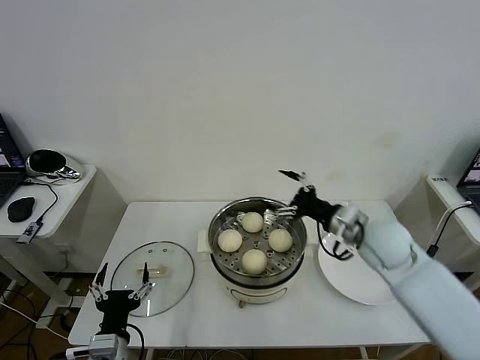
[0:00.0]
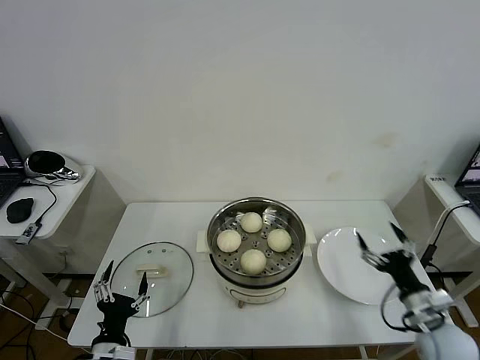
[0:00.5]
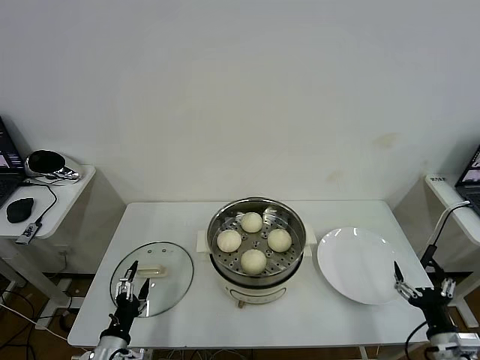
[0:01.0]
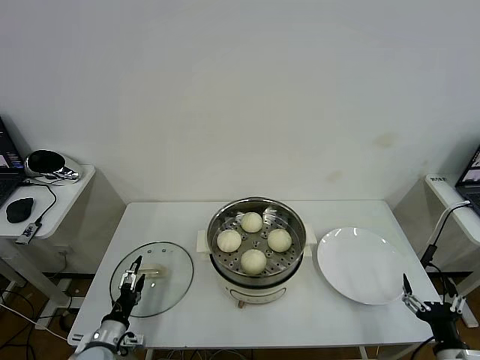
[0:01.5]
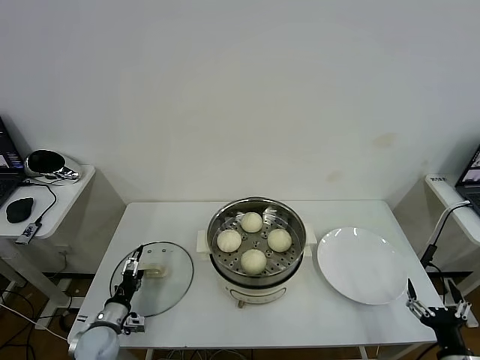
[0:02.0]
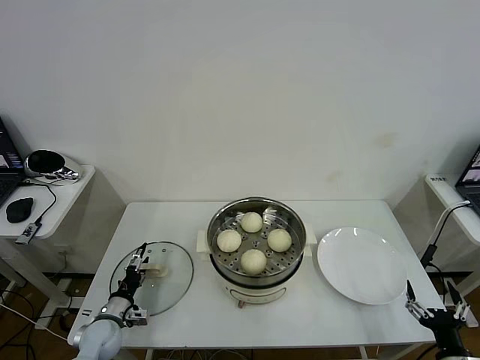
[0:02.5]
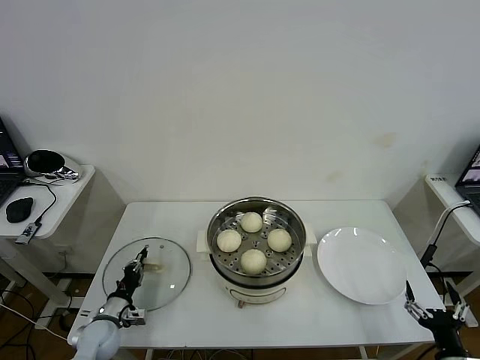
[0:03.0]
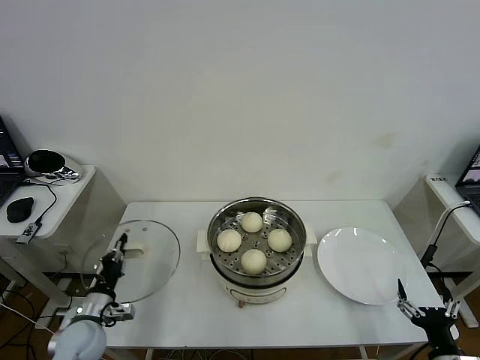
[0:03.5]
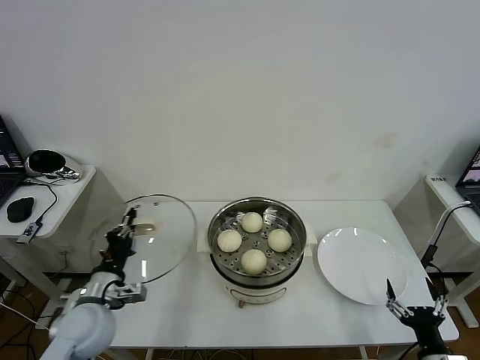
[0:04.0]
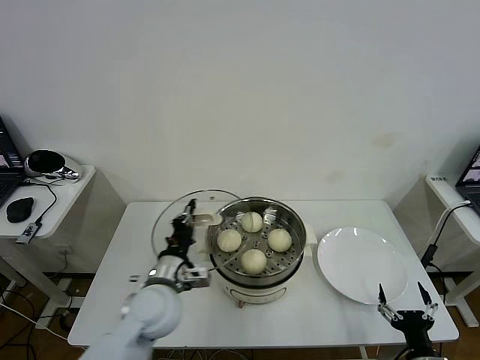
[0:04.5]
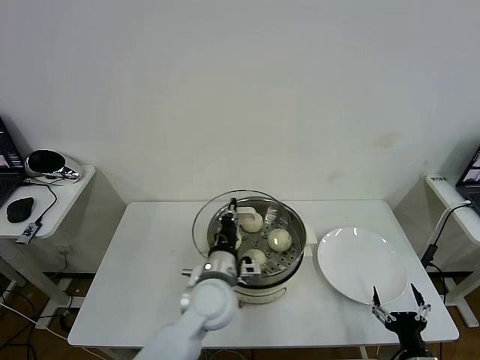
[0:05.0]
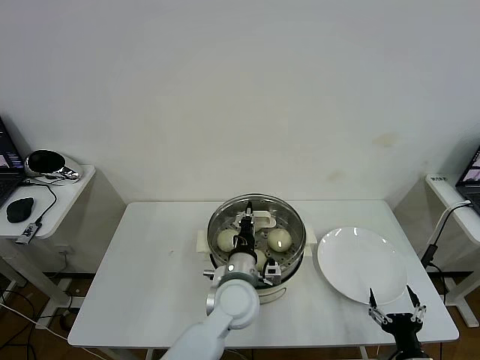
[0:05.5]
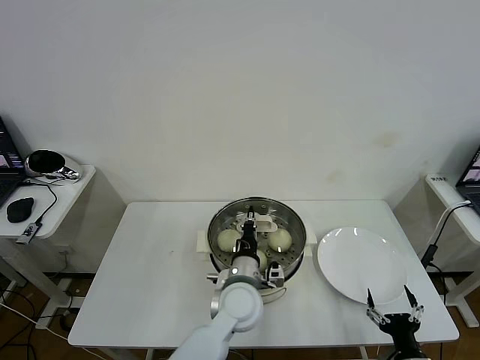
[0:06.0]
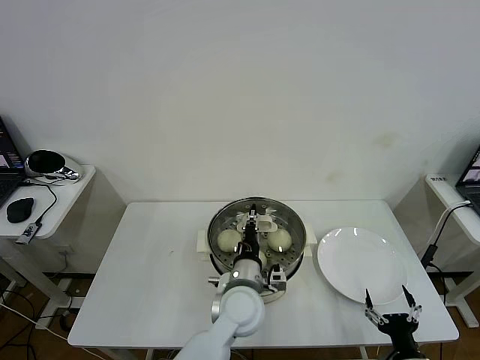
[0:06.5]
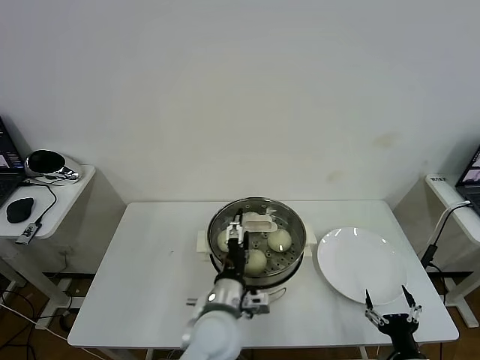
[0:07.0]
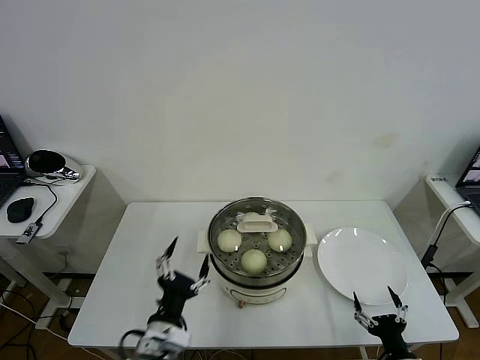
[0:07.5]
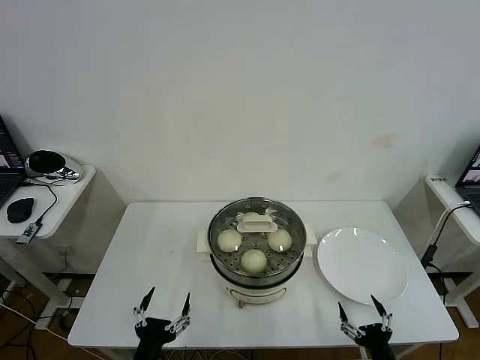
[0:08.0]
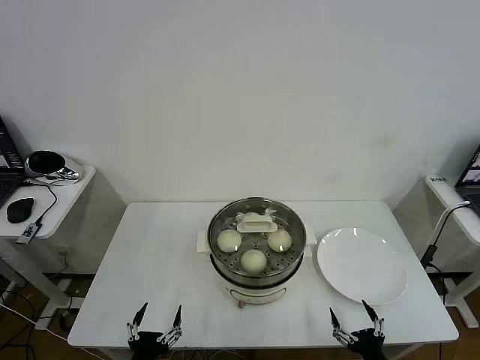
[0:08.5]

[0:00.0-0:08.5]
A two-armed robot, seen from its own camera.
Task of the whole recording: take steamed baozi put them in steamer then cover it.
Step, 0:00.0 to 0:03.0: Grasp the pot lid with left gripper.
Step, 0:03.5 to 0:07.0: Place the pot lid on the steamer with left gripper.
0:00.0 to 0:02.0: The right gripper goes roughly 35 cm backward, downward and to the right. Meanwhile the left gripper shifts approximately 20 cm downward, forward and to the left.
0:02.0 to 0:04.0: The left gripper shifts roughly 15 cm upward, and closes.
0:04.0 to 0:06.5: The right gripper shifts by some 5 cm; the left gripper travels to the right by about 30 cm.
0:06.5 to 0:08.5: The left gripper is displaced to the left and backward by roughly 30 cm, and opens its fingers.

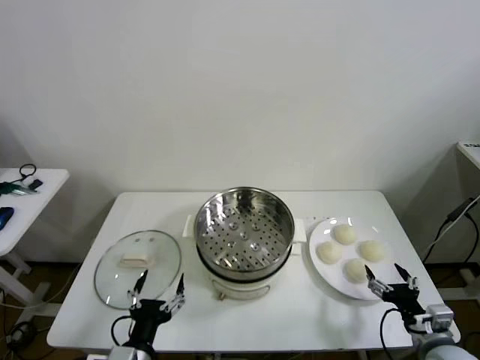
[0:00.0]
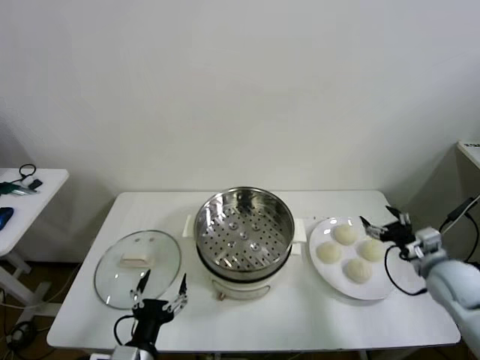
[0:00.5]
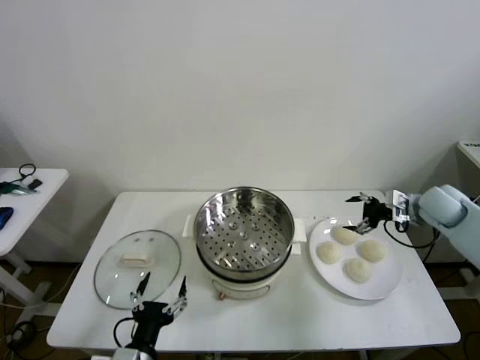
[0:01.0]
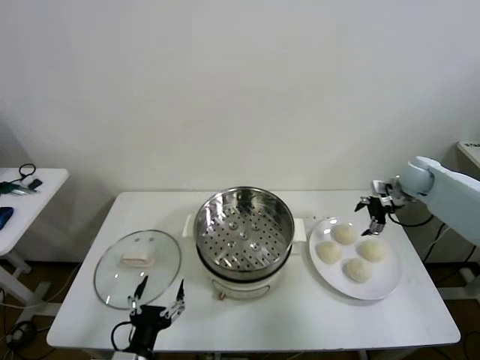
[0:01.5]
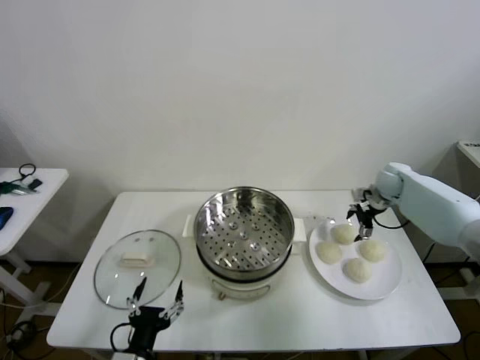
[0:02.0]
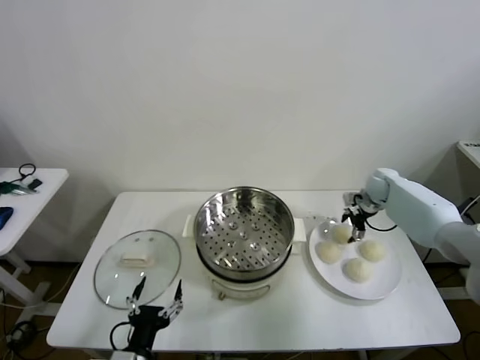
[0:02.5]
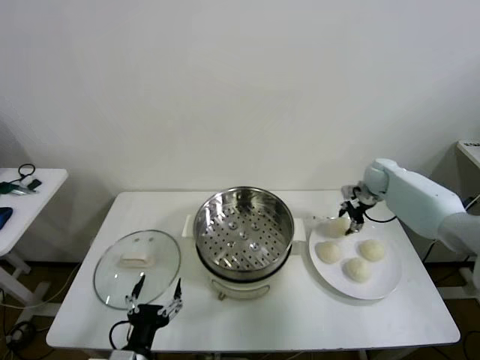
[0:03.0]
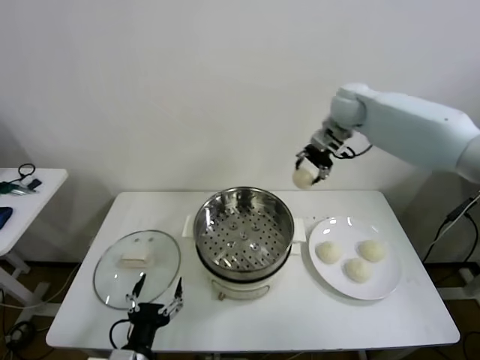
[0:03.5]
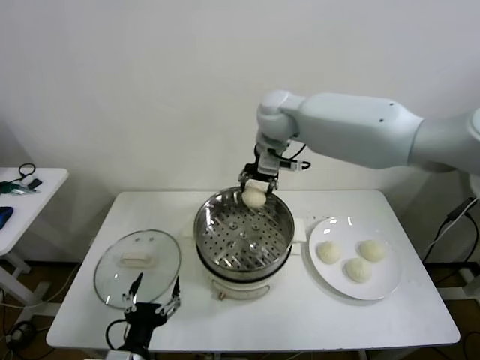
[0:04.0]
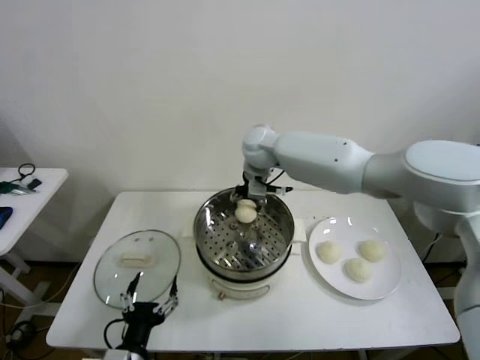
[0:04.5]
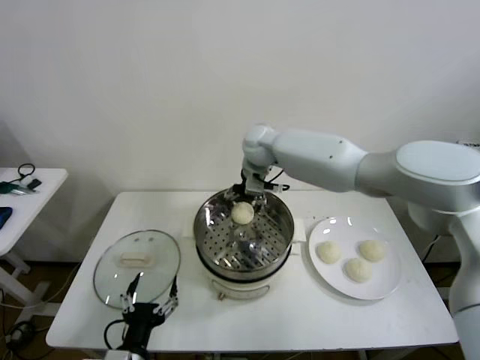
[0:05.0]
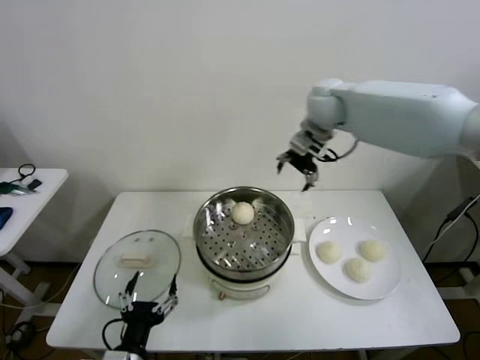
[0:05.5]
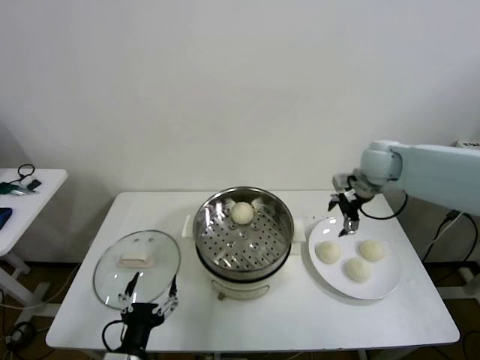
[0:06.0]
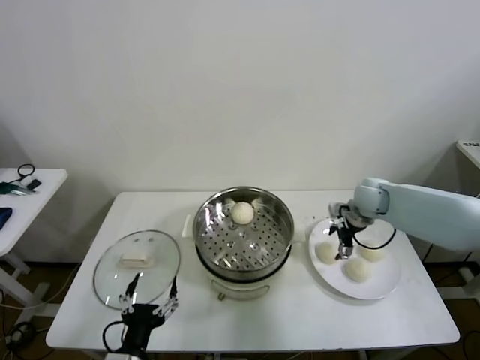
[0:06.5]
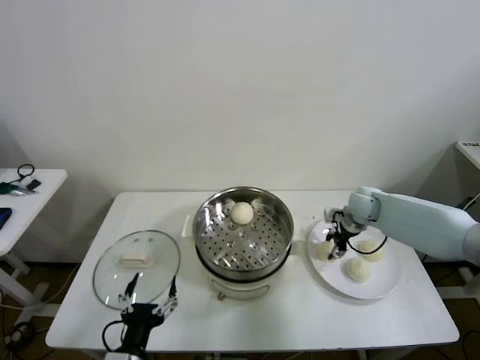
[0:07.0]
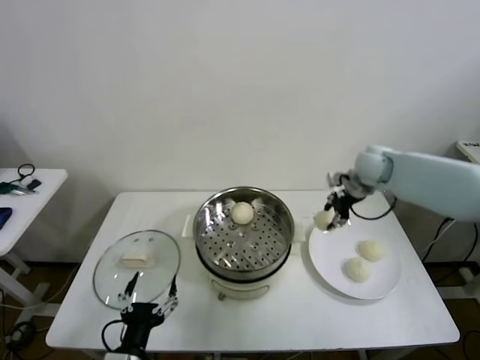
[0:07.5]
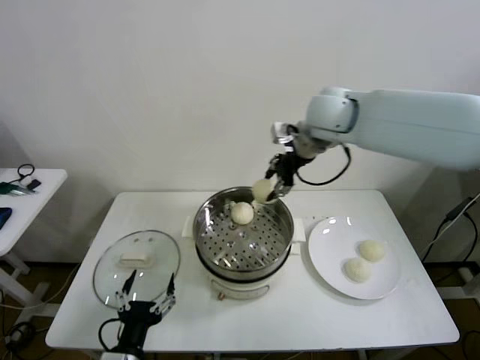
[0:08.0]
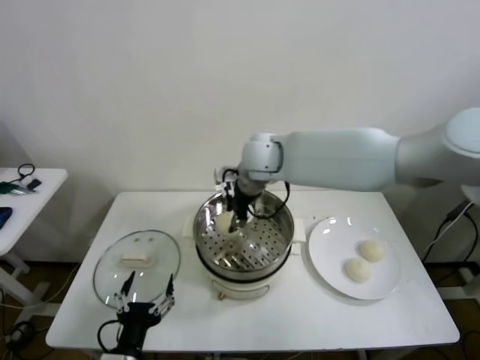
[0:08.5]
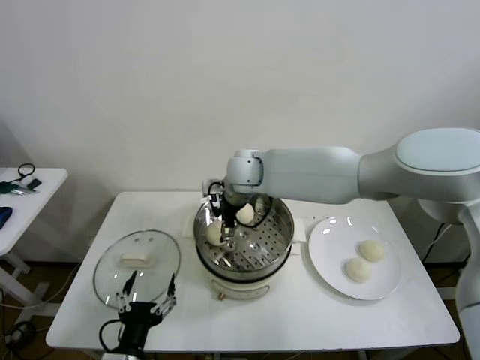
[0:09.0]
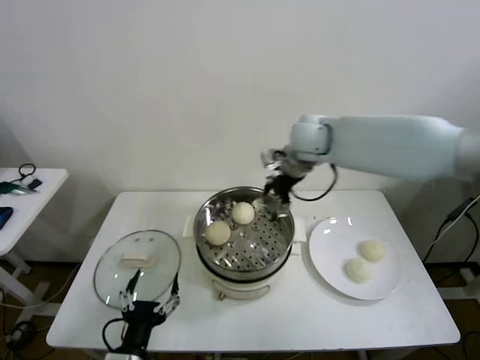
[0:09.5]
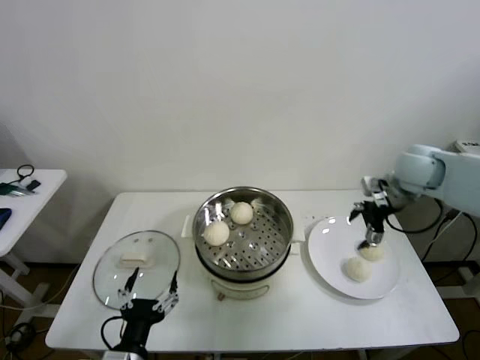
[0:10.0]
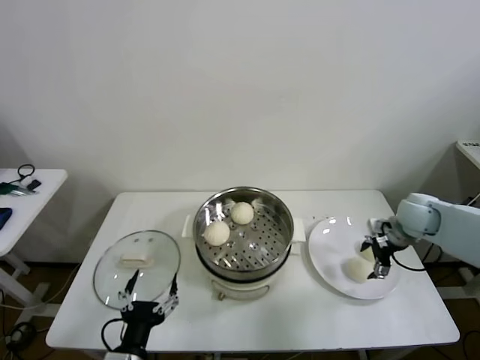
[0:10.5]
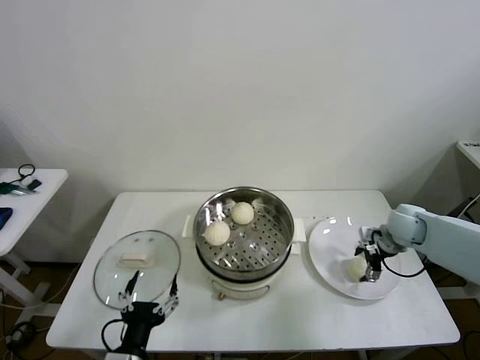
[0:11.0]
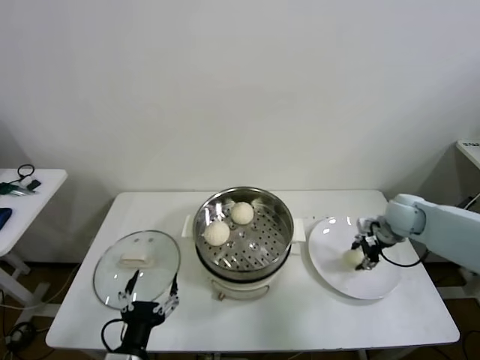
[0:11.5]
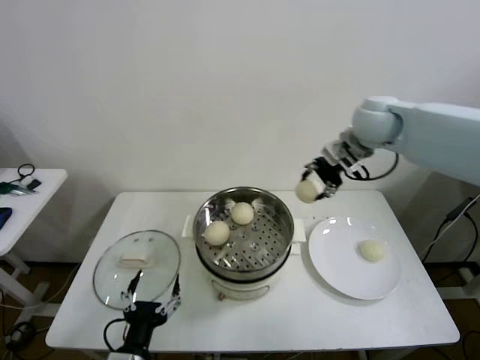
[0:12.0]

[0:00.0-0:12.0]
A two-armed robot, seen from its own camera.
Task of the whole recording: take steamed baozi put them in steamer then cover it.
Step, 0:00.0 to 0:02.5: Grasp the baozi in the plate with right gripper.
Step, 0:03.0 to 0:04.5: Place the baozi on the steamer with right gripper.
Step, 0:05.0 to 0:07.0: Grasp the baozi in the plate with right gripper.
Step, 0:07.5 to 0:09.0: Place the baozi on the steamer with right gripper.
Step, 0:09.5 to 0:11.0: Grasp the baozi in the plate with right gripper.
0:02.0 to 0:04.0: The right gripper goes about 40 cm to the left and upward, and closes its fingers.
0:04.0 to 0:06.0: The right gripper moves to the right and downward, roughly 30 cm, and opens up.
0:06.0 to 0:08.0: The right gripper shifts approximately 25 cm to the left and upward, and closes.
0:08.0 to 0:10.0: The right gripper goes some 30 cm to the right and downward, and opens its fingers.
0:10.0 to 0:12.0: The right gripper travels to the left and upward by about 20 cm, and closes its fingers.

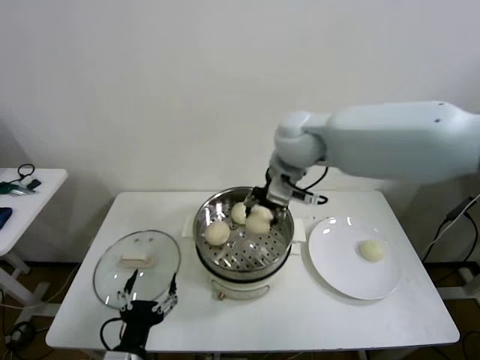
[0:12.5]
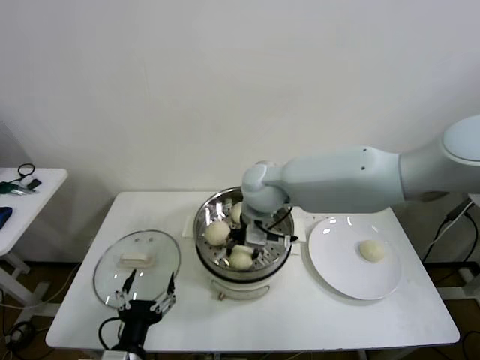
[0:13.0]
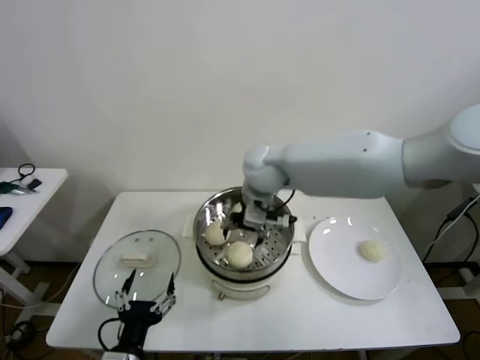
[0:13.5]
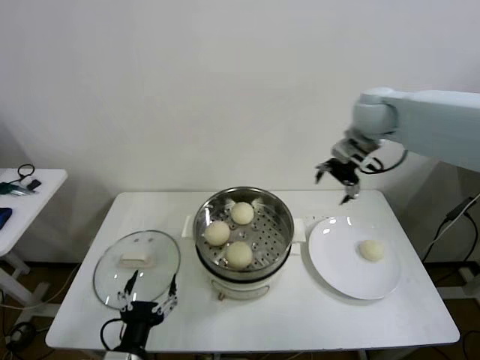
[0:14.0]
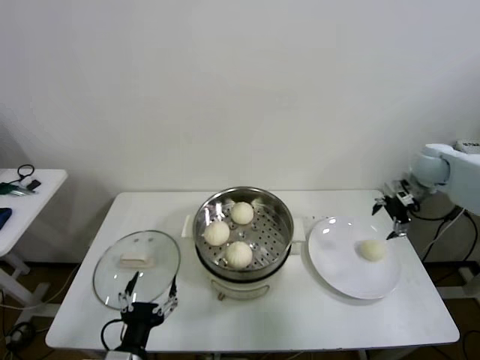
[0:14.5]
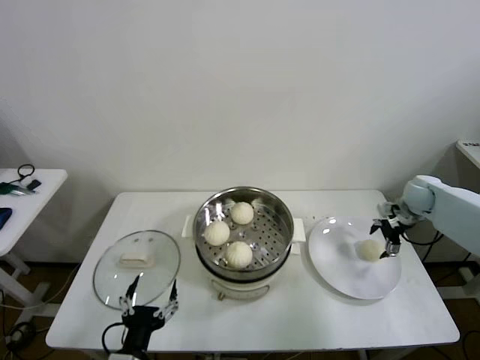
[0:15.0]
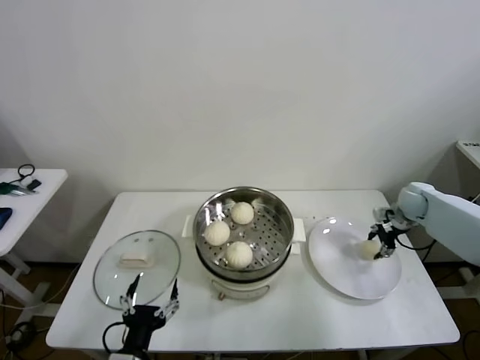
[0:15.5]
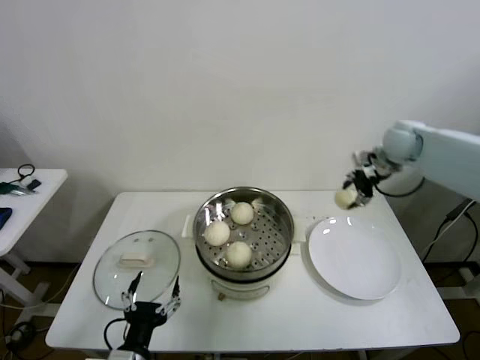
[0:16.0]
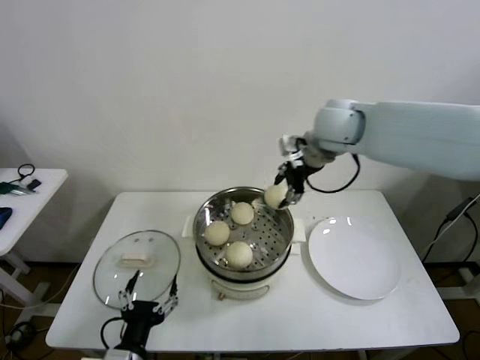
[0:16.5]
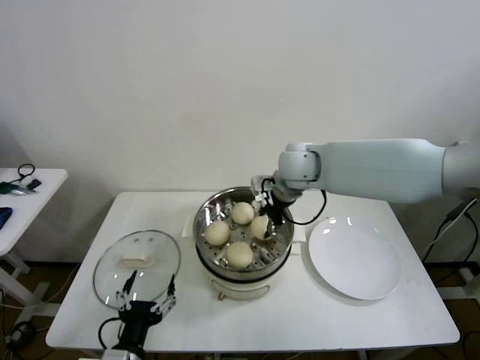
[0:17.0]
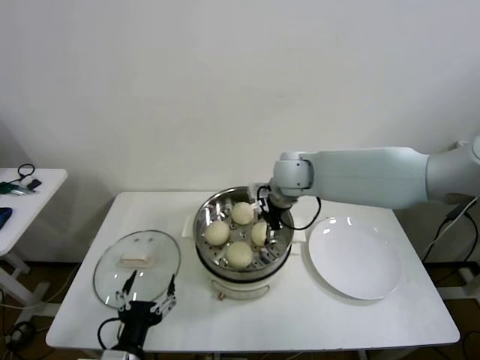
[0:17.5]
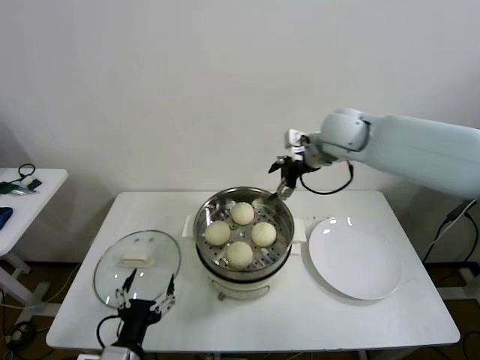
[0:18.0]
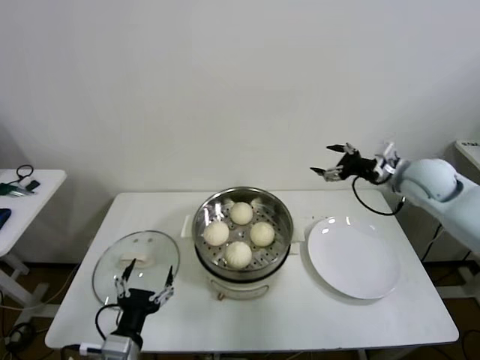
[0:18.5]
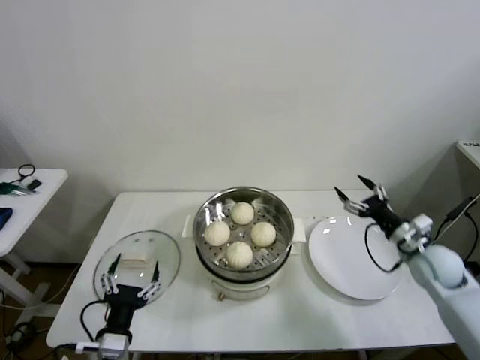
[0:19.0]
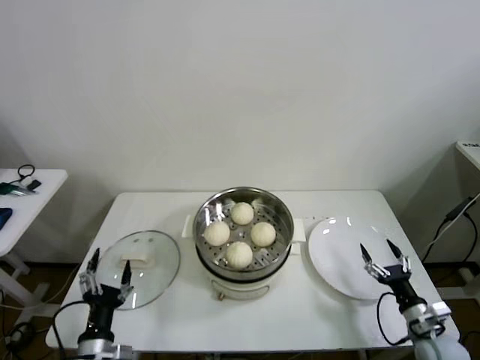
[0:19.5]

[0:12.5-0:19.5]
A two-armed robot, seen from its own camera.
Task of the whole recording: take steamed baozi put them in steamer then cover it.
Step, 0:14.0 to 0:15.5: Grasp the baozi in the plate with right gripper.
Step, 0:16.0 to 0:17.5: Place the baozi on the steamer with right gripper.
0:12.5 to 0:14.5: The right gripper goes roughly 35 cm to the right, and opens.
0:14.5 to 0:16.0: The right gripper travels to the left and upward by roughly 10 cm, and closes.
0:16.0 to 0:17.5: The right gripper is displaced to the left by roughly 25 cm, and opens.
0:17.5 to 0:19.5: The right gripper heads to the right, downward and backward, covering about 50 cm. Meanwhile the left gripper is displaced to the left by some 5 cm.
